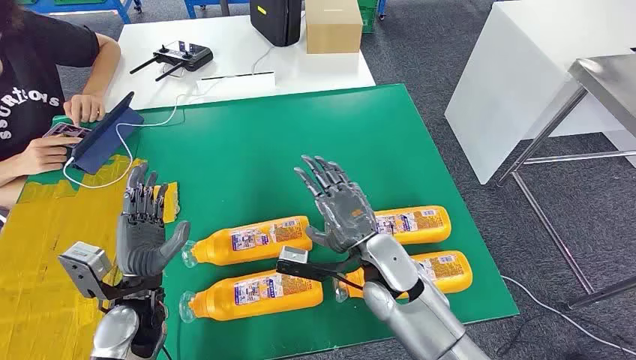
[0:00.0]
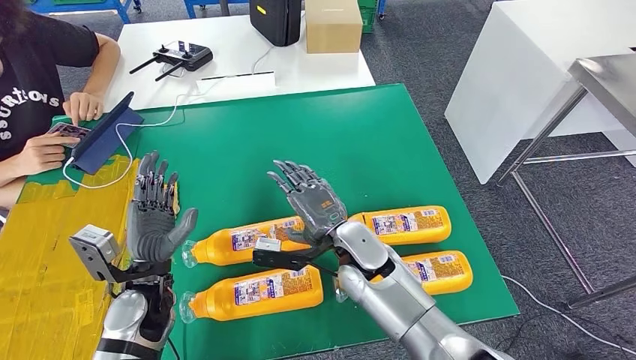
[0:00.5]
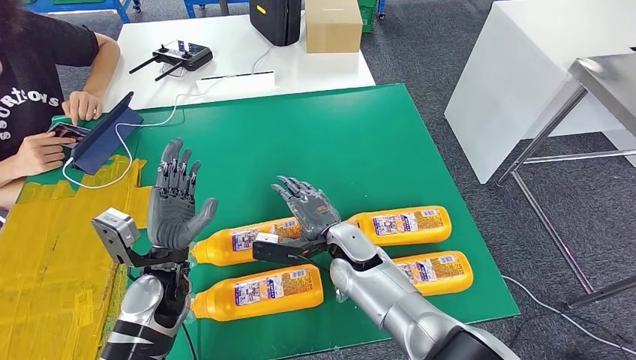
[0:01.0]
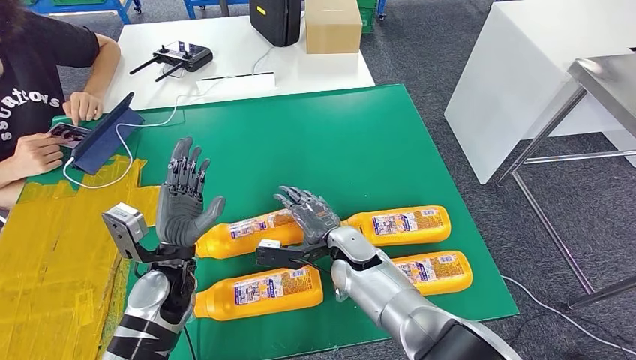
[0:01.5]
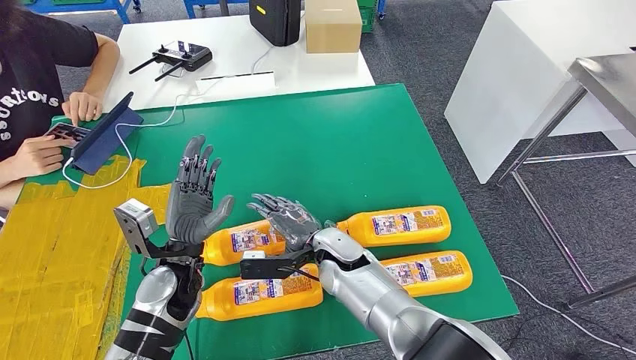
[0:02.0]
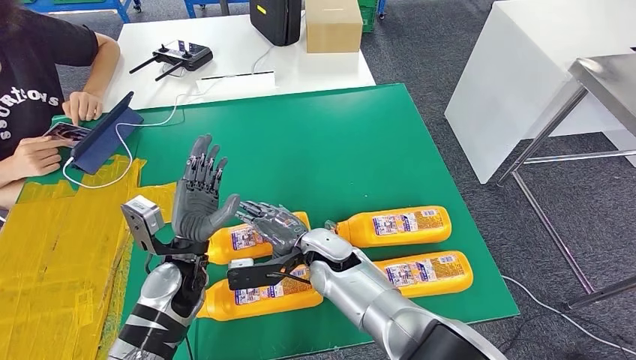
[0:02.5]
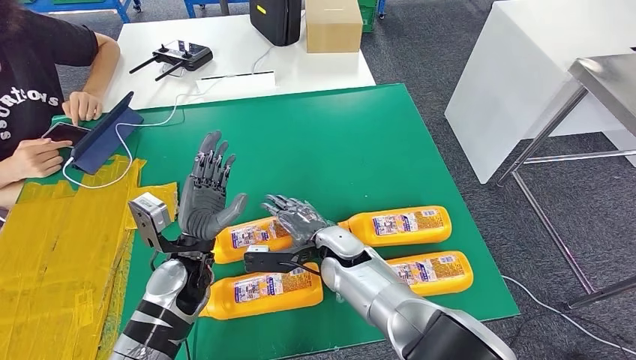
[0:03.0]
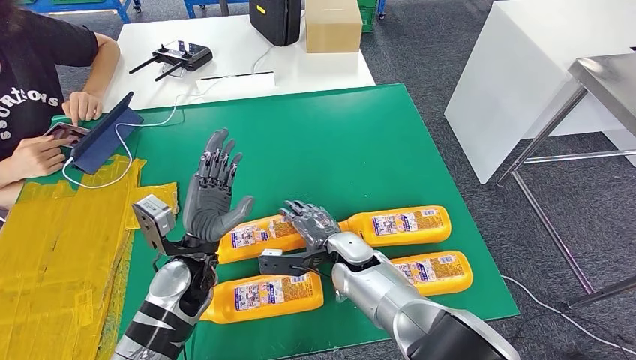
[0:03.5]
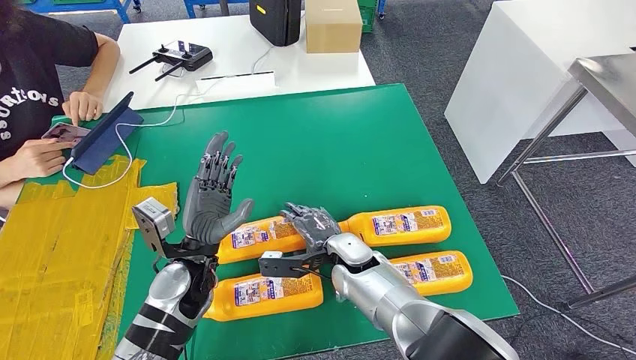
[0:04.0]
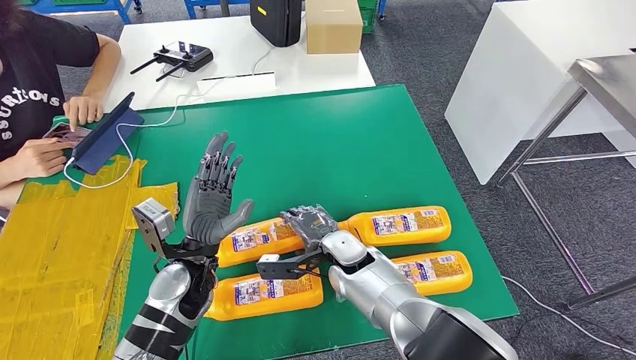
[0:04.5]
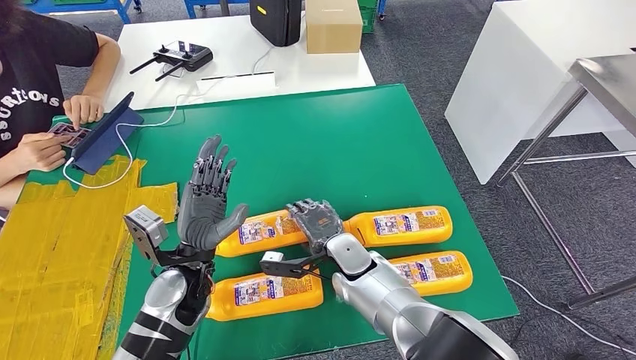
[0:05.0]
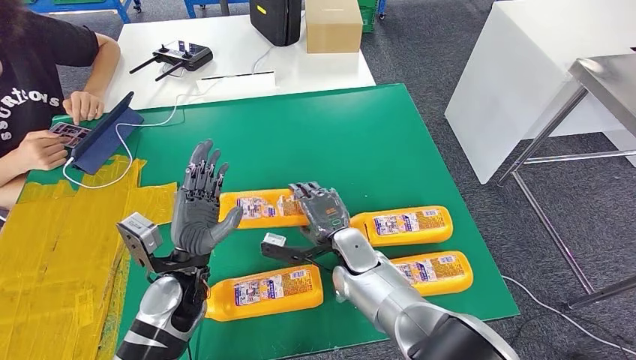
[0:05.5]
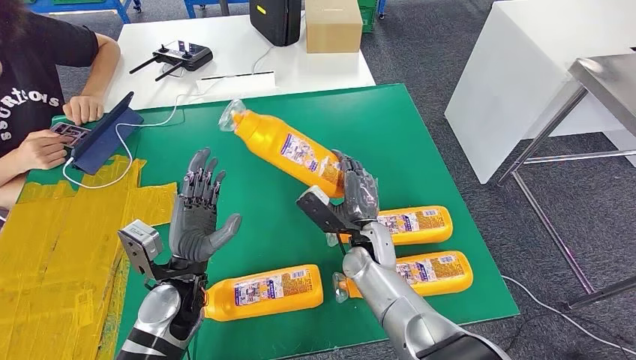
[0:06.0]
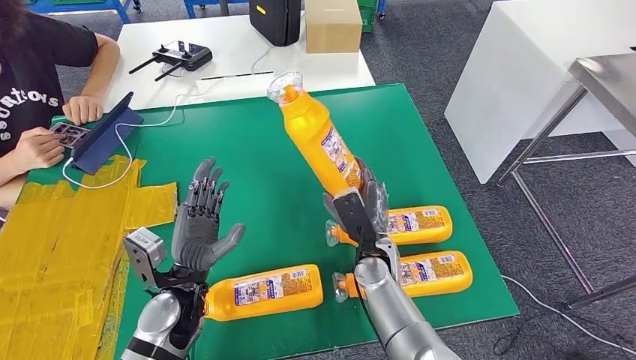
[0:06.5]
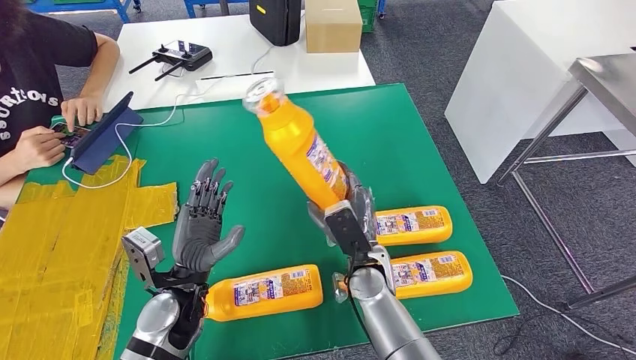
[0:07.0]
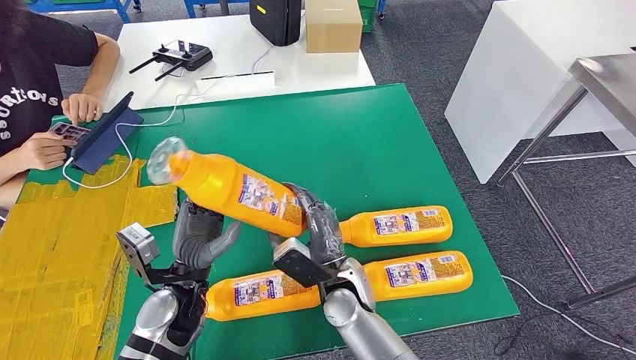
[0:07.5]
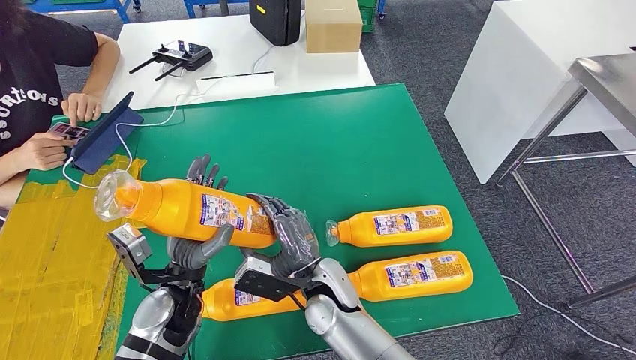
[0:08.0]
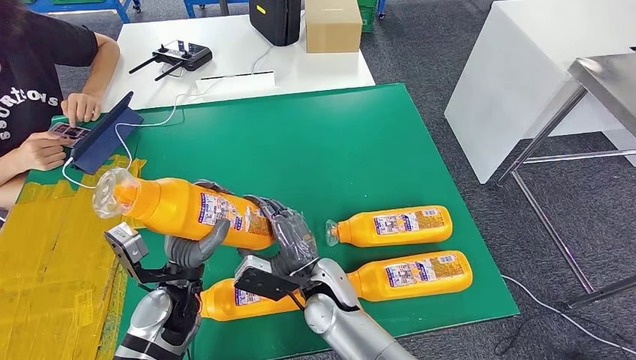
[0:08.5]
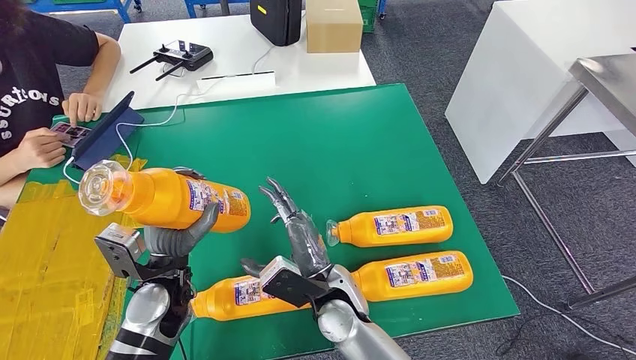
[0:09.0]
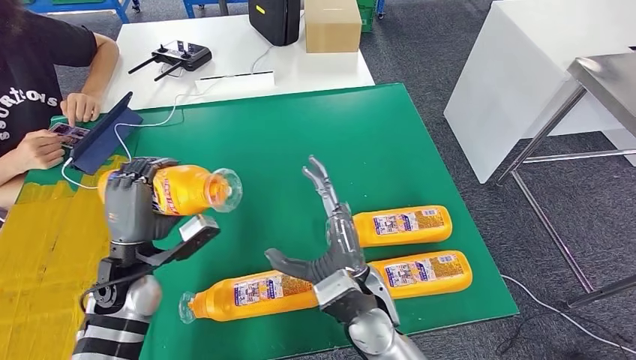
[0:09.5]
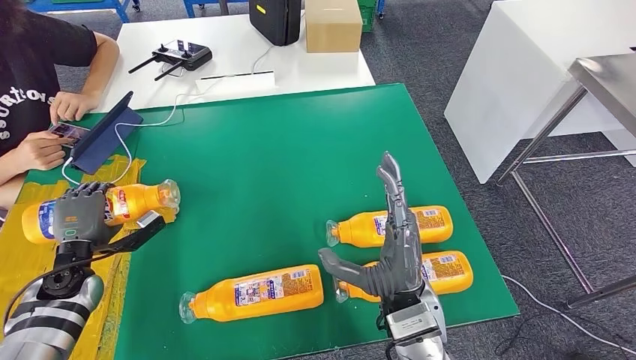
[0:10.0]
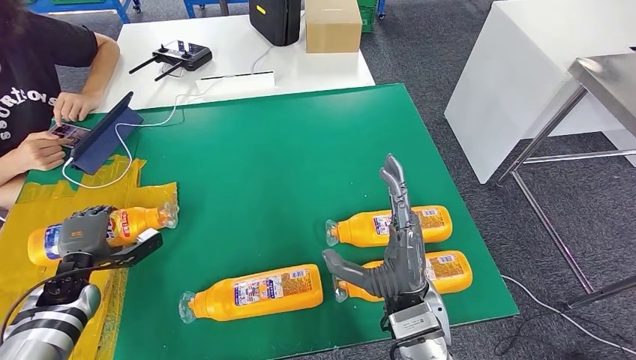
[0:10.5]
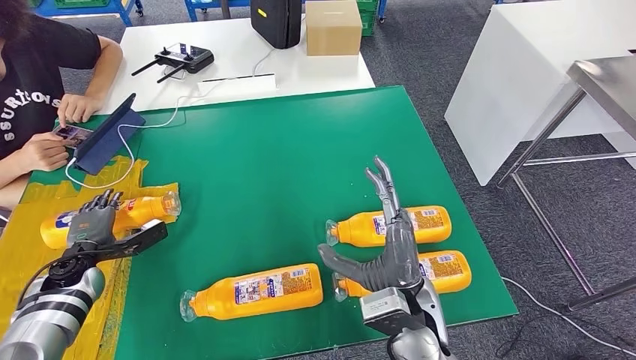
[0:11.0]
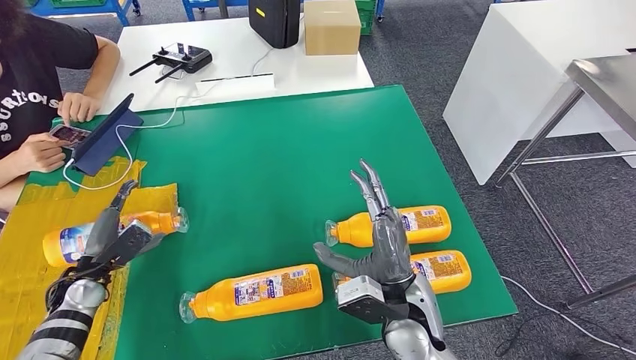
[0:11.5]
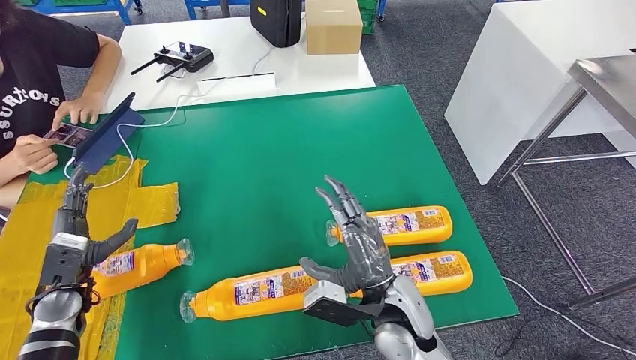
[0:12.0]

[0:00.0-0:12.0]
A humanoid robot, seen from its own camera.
Step, 0:00.0 to 0:07.0: Take the bottle from the table.
Step, 0:08.0 to 0:11.0: Flip the bottle to face forward.
0:02.0 to 0:04.0: The hands make only small movements.
0:06.0 to 0:08.0: The right hand moves to the left and backward, some 15 cm.
0:08.0 to 0:10.0: The left hand heads to the left, covering some 20 cm. Meanwhile the right hand is displaced to the right, upward and backward by roughly 15 cm.

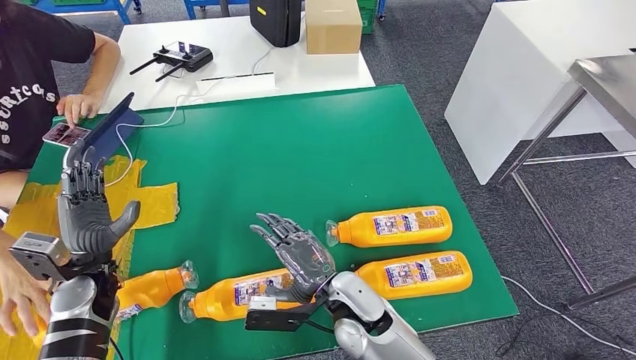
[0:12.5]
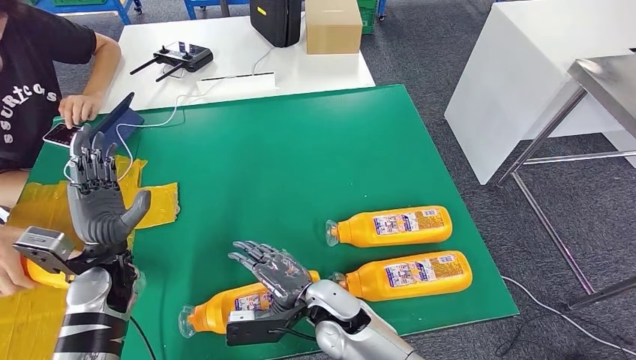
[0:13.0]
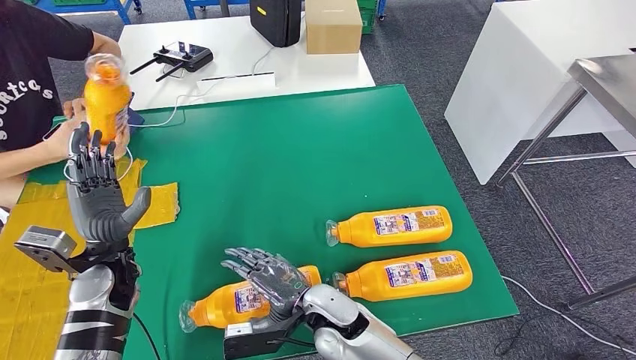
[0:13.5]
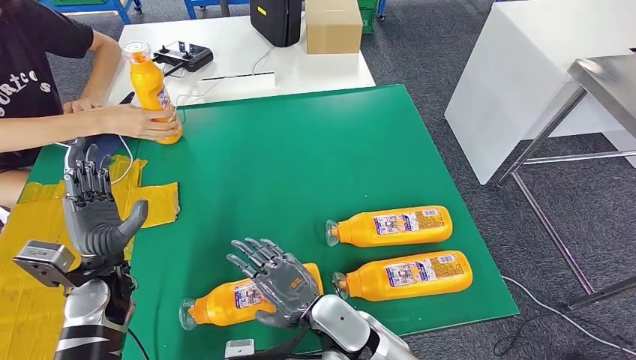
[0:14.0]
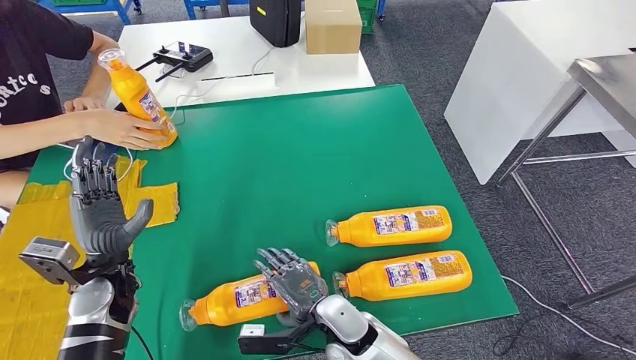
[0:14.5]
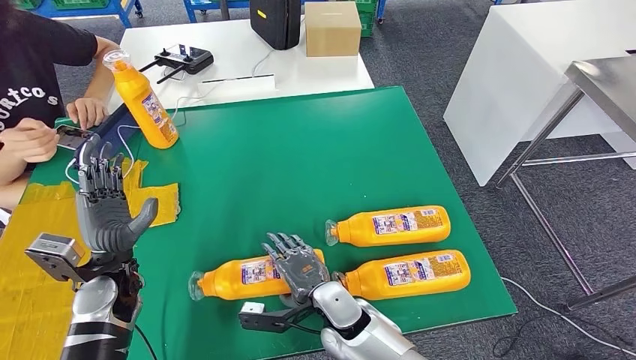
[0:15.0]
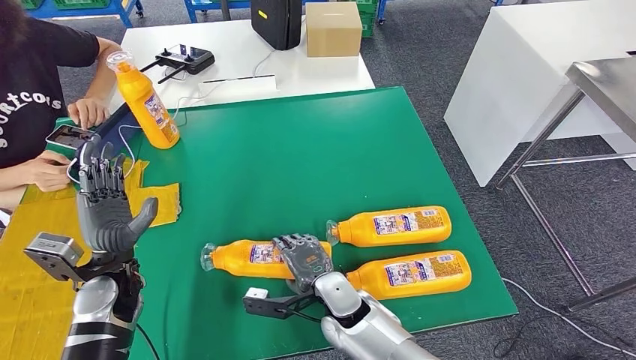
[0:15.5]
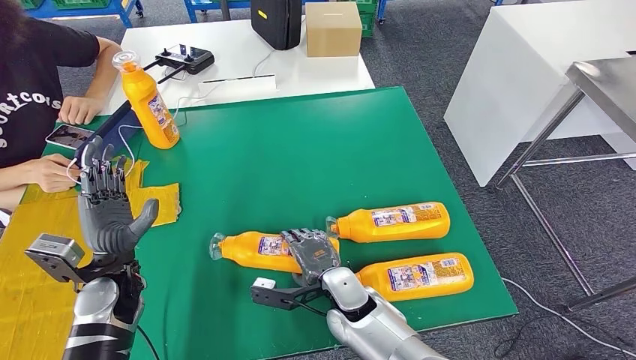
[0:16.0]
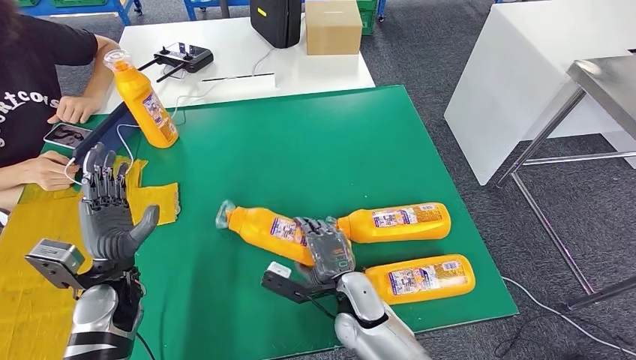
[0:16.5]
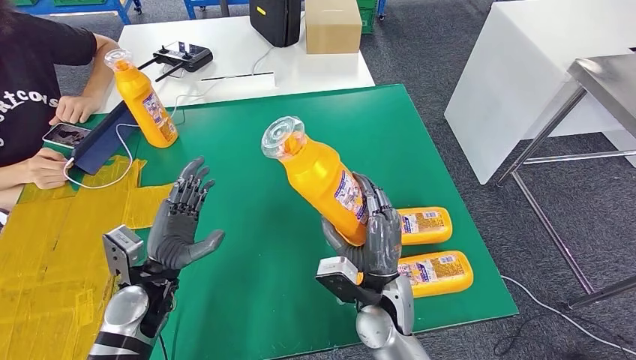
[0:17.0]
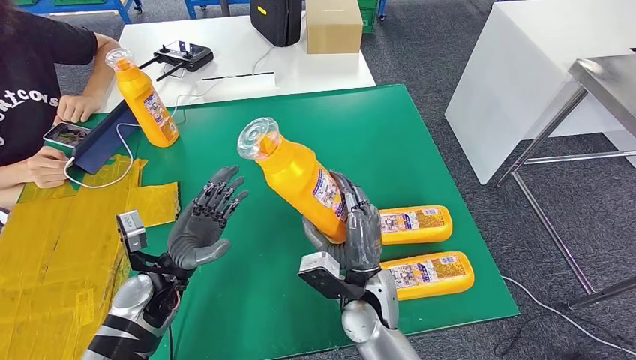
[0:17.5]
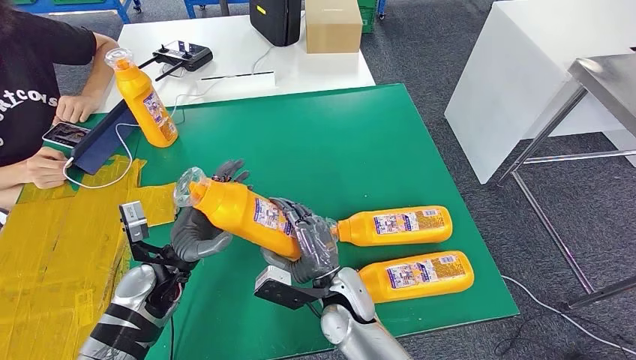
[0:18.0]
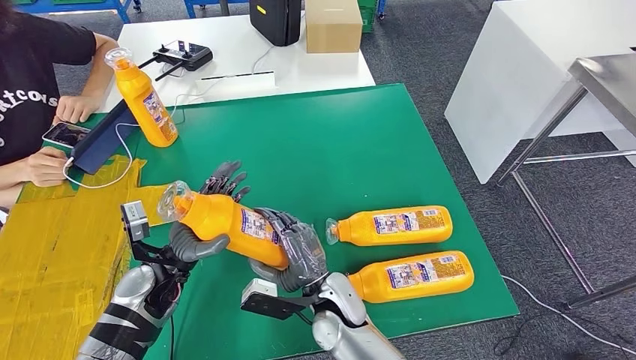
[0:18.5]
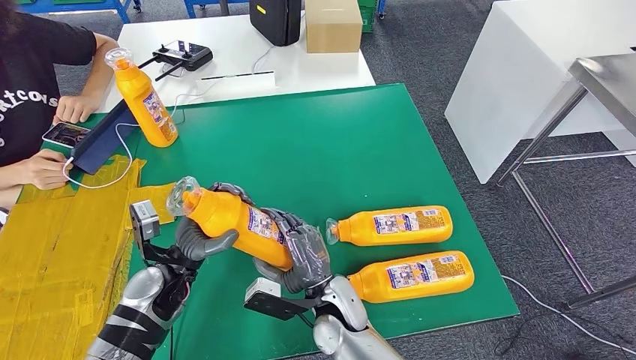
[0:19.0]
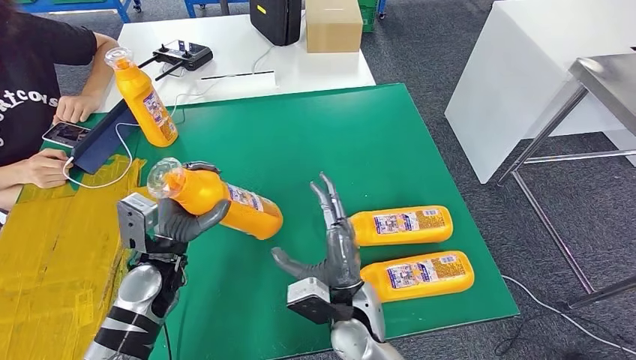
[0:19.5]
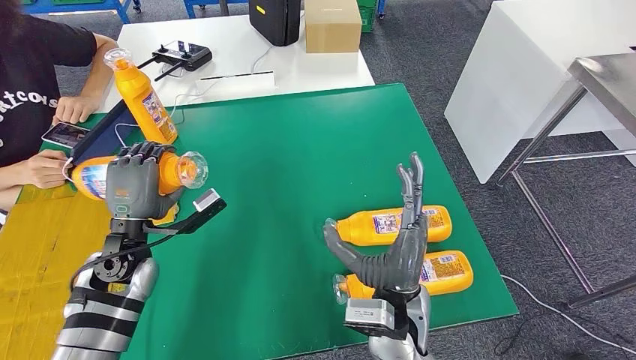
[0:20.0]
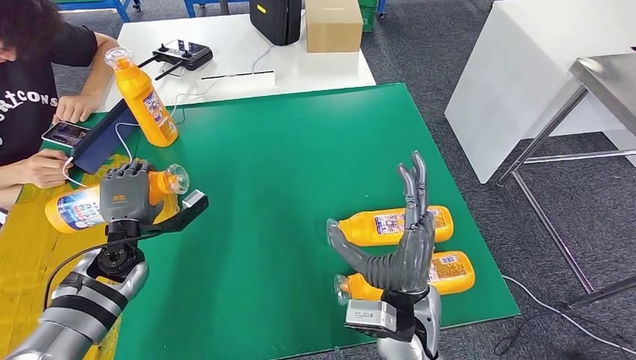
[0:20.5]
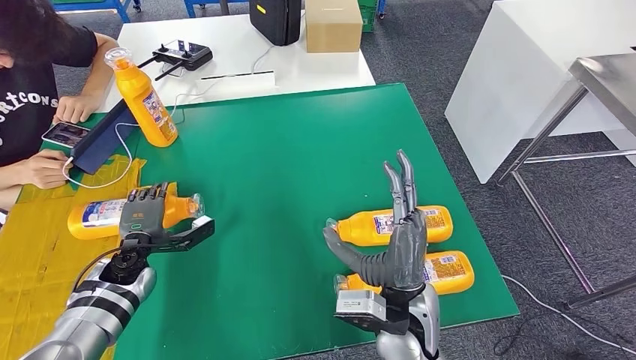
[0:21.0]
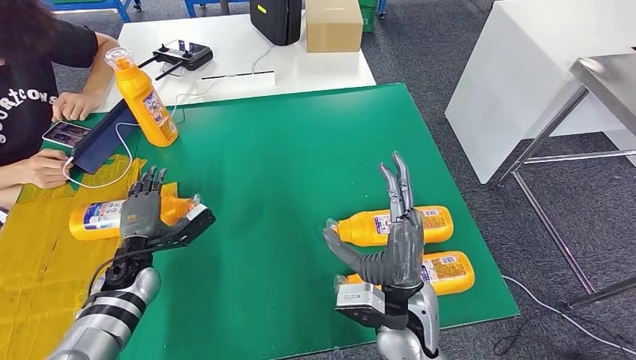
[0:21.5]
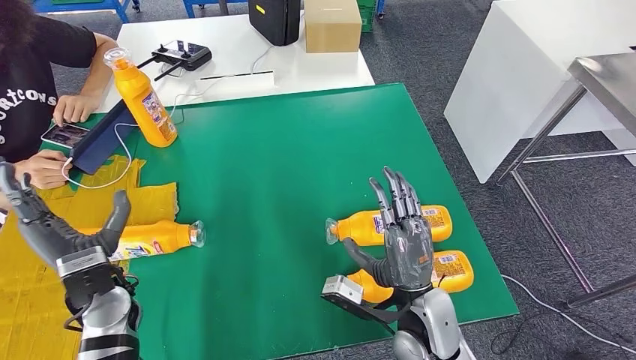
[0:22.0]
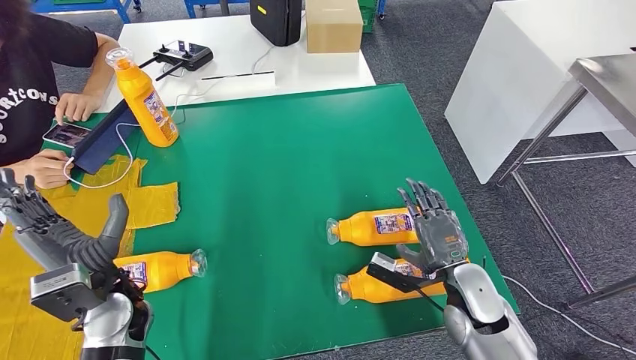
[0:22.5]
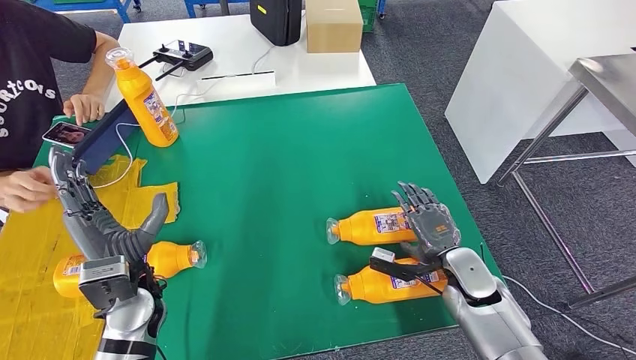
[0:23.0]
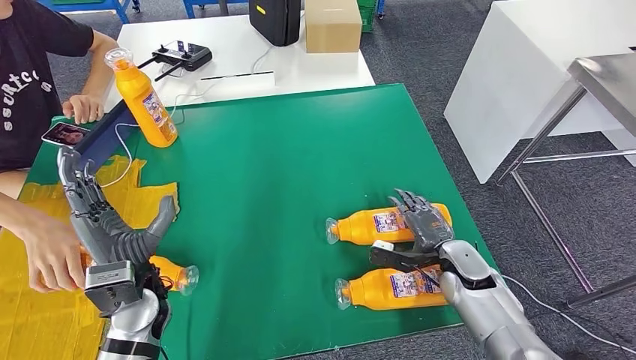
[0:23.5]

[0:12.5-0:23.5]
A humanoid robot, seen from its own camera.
Step, 0:12.5 to 0:16.5: Pick up the bottle from the table.
Step, 0:17.0 to 0:21.0: Flip the bottle to face forward.
0:12.5 to 0:14.5: The right hand goes approximately 5 cm downward.
0:18.0 to 0:20.0: The left hand moves roughly 5 cm, while the right hand is displaced upward and to the right by about 10 cm.
0:20.0 to 0:21.5: The left hand heads downward, covering approximately 10 cm.
